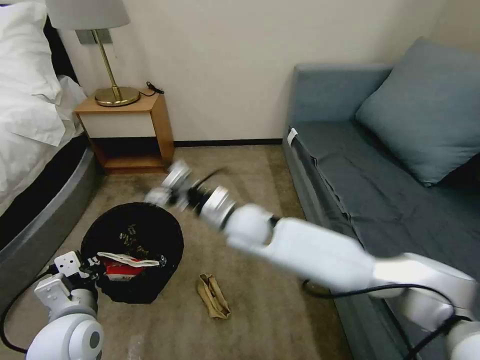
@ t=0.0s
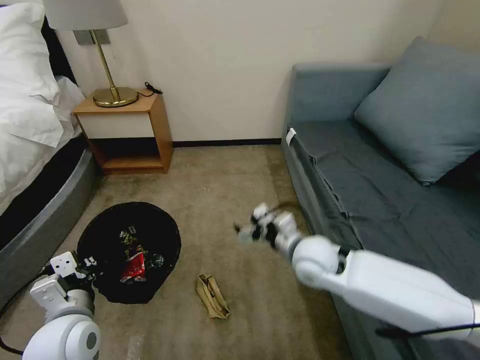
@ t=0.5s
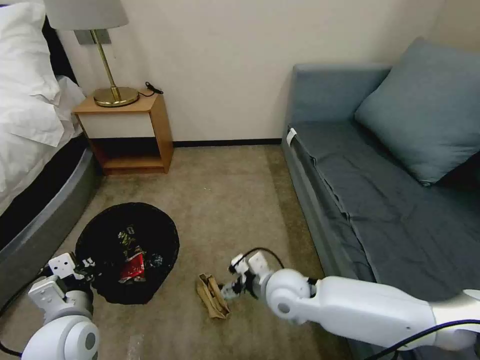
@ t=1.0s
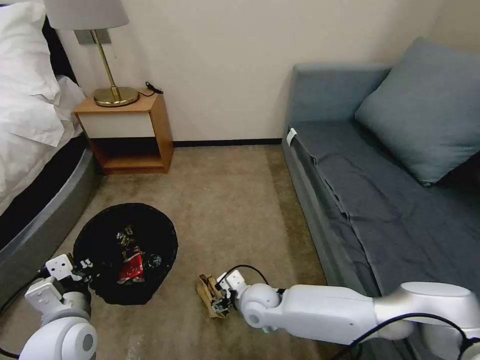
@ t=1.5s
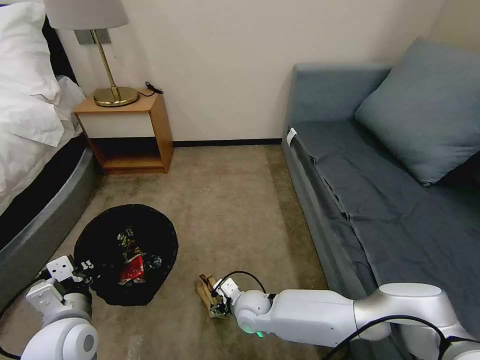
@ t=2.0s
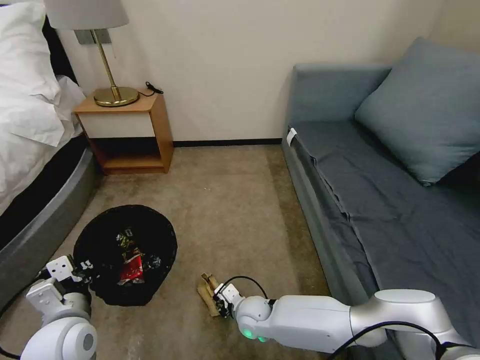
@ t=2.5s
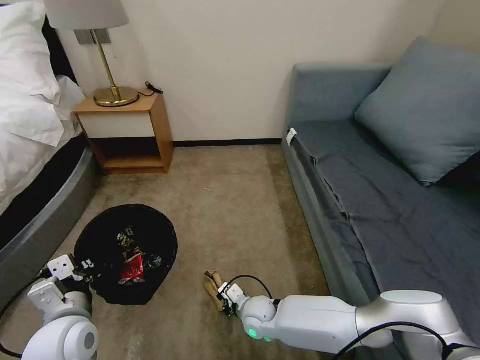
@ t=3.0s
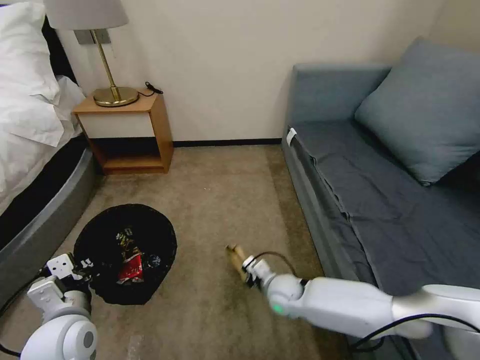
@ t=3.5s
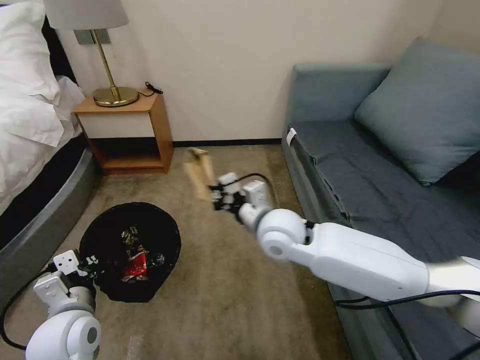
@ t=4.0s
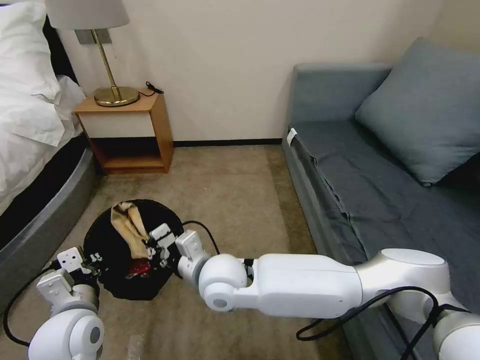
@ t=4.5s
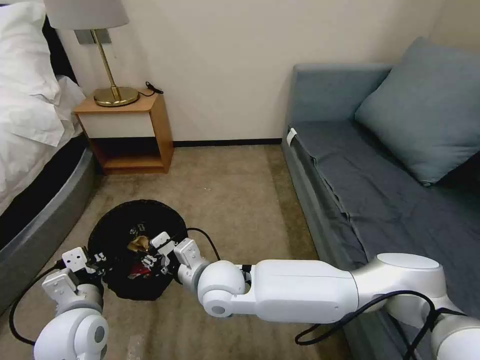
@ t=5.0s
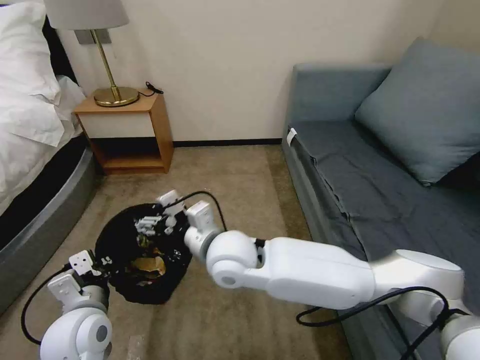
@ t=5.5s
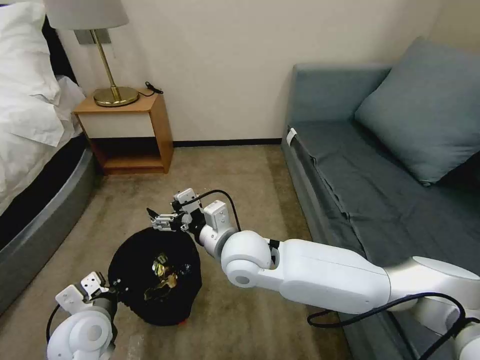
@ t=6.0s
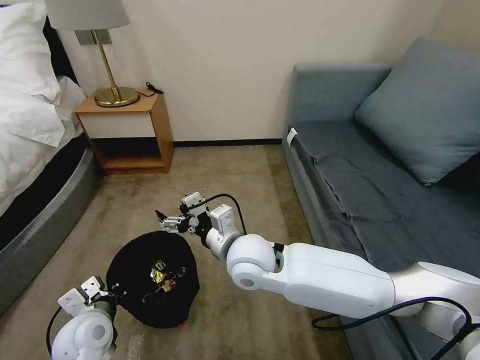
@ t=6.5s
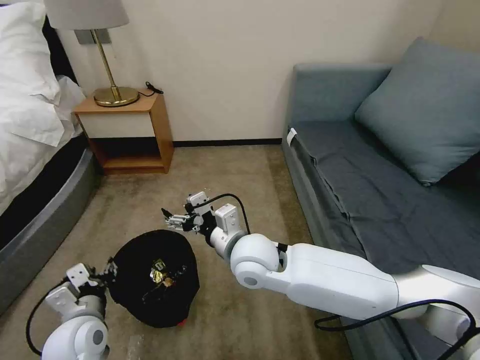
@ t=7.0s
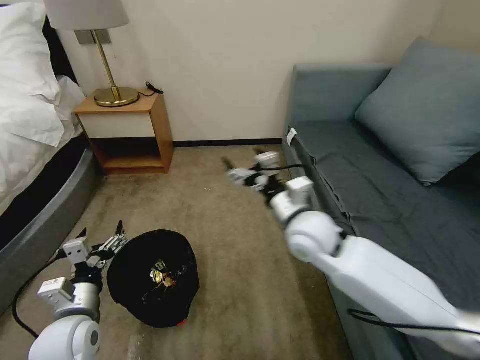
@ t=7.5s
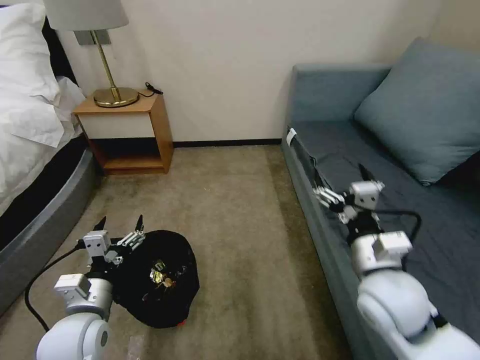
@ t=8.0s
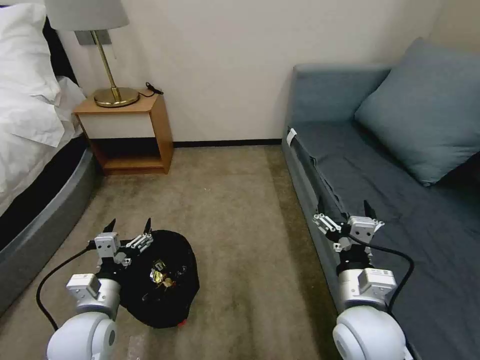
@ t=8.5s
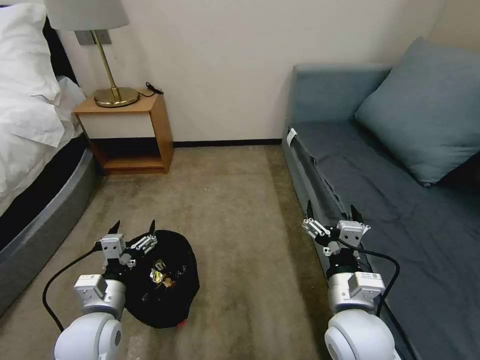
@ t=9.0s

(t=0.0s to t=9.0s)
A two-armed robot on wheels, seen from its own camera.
Task of the whole recording: Pick up the trash bin, then pick up the garbage on the floor and place it into the trash bin.
t=0.0s - t=2.0s: The right gripper travels downward and backward by approximately 25 cm.
t=2.0s - t=4.5s: The right gripper travels upward by approximately 20 cm, and closes up.
t=4.5s - t=7.0s: The right gripper shifts some 5 cm to the right, and opens, while the left gripper moves downward, some 5 cm, and opens.
t=7.0s - t=9.0s: The left gripper opens up; the right gripper is displaced to the right and backward by about 20 cm.

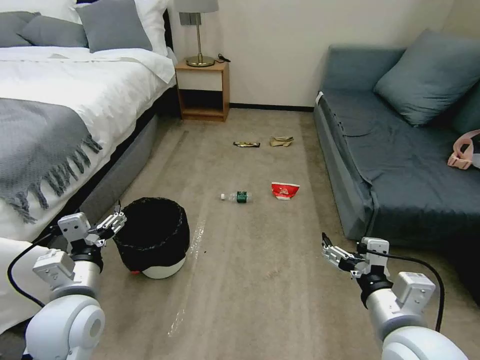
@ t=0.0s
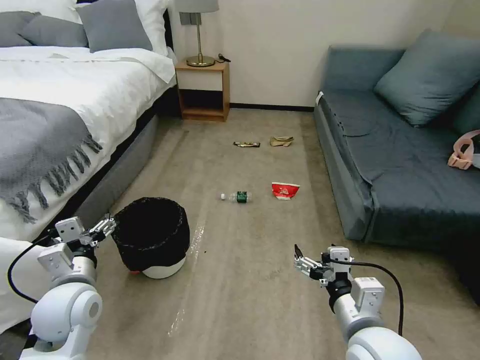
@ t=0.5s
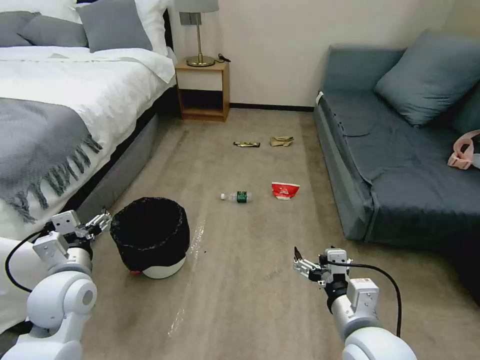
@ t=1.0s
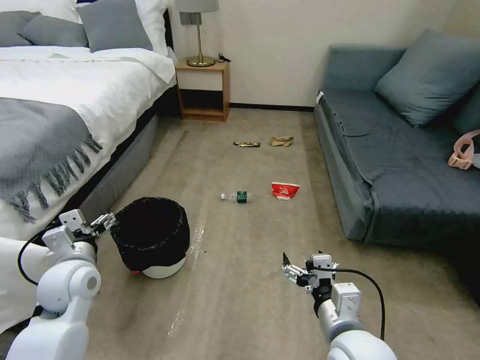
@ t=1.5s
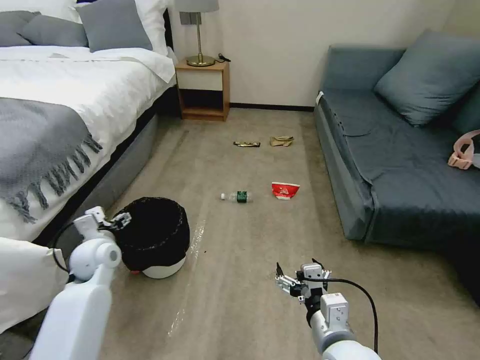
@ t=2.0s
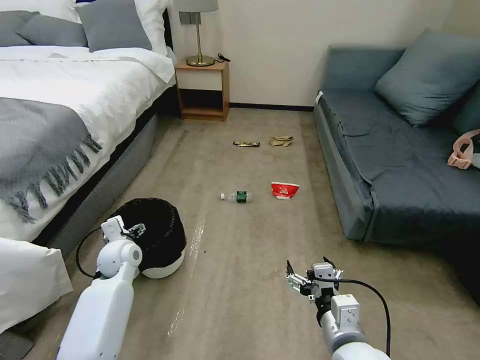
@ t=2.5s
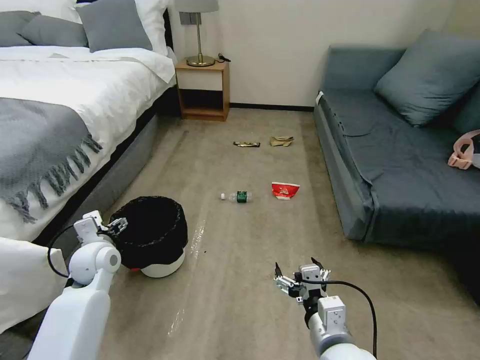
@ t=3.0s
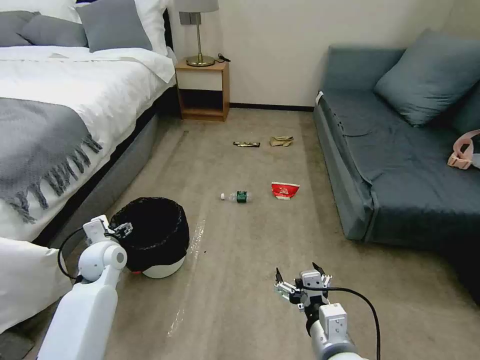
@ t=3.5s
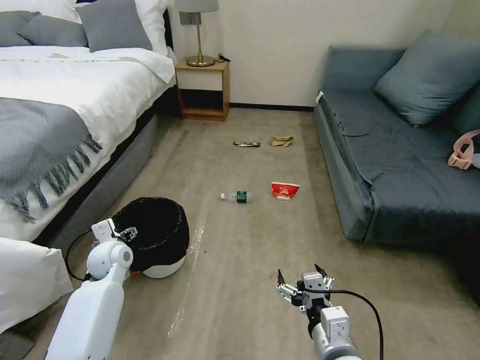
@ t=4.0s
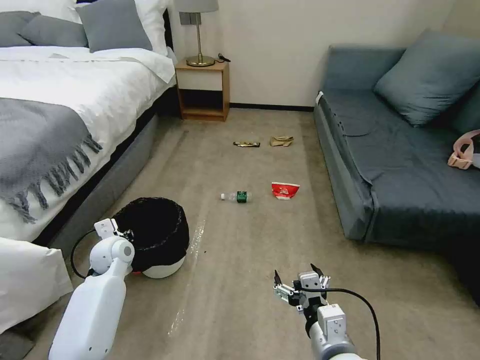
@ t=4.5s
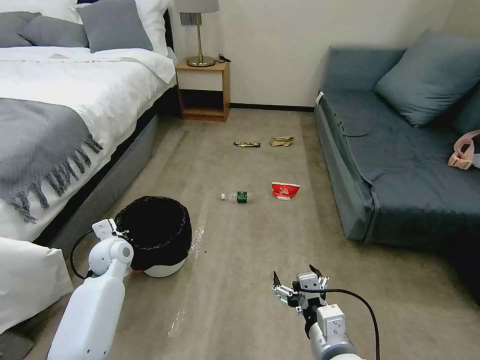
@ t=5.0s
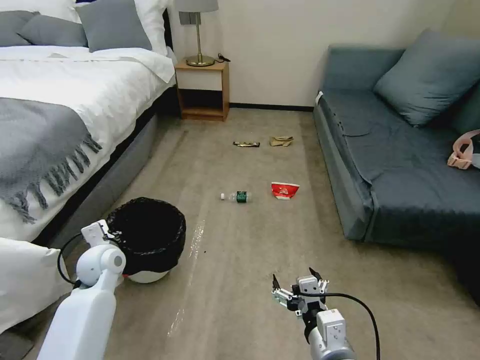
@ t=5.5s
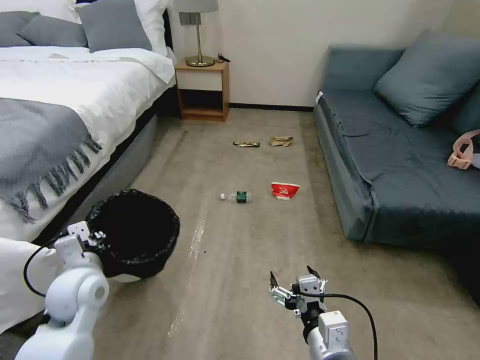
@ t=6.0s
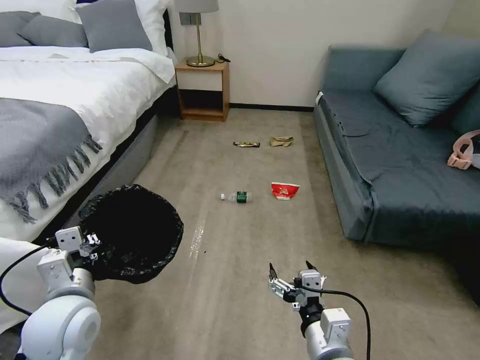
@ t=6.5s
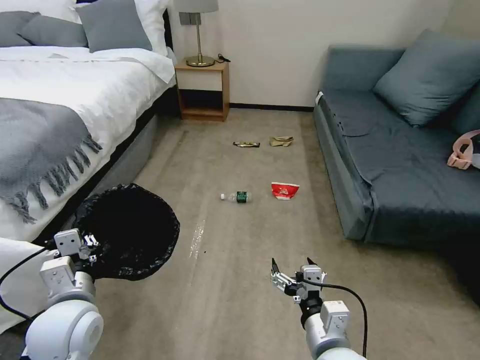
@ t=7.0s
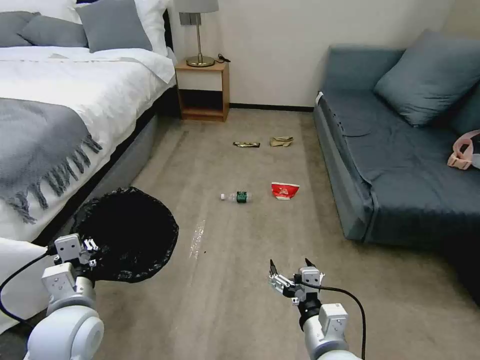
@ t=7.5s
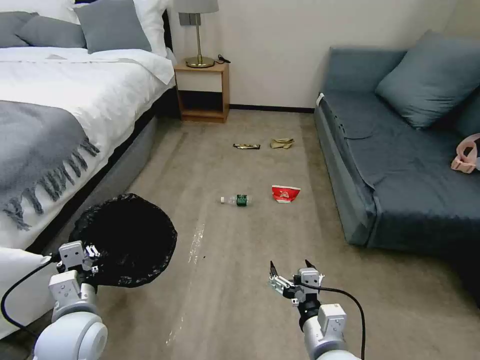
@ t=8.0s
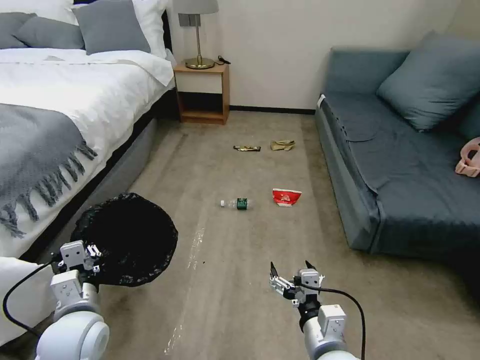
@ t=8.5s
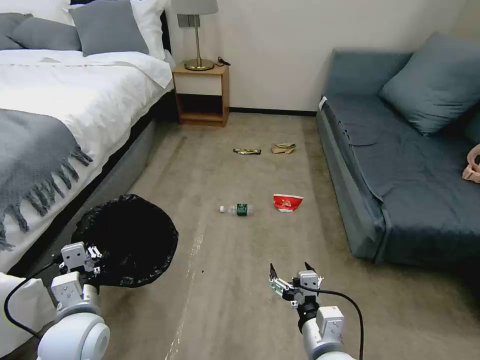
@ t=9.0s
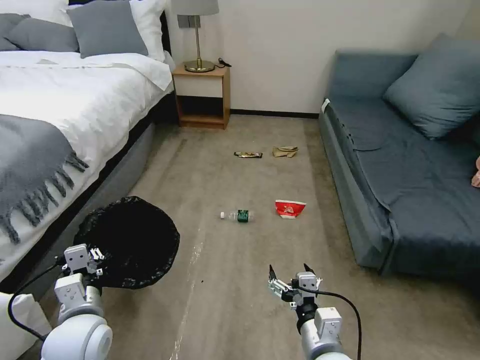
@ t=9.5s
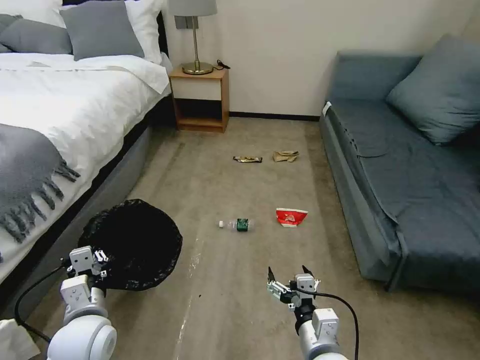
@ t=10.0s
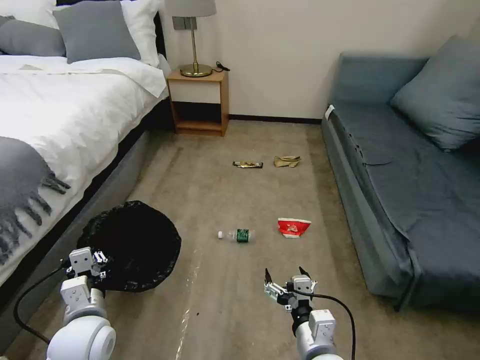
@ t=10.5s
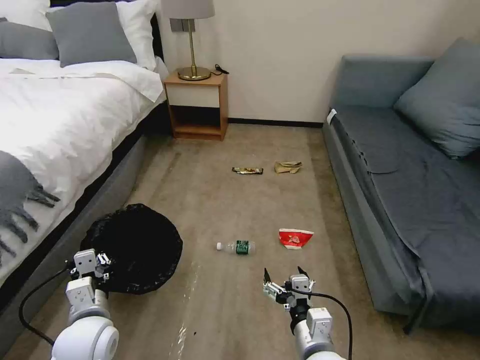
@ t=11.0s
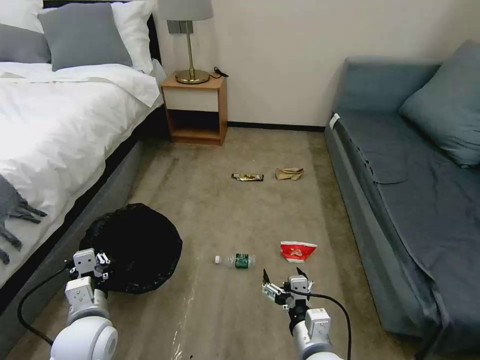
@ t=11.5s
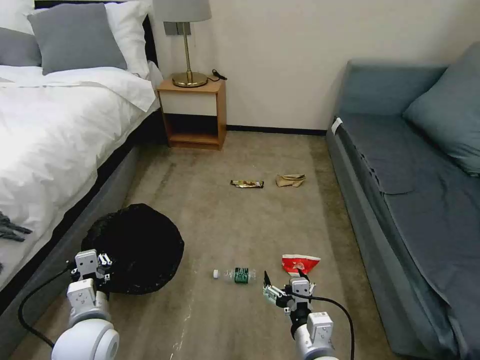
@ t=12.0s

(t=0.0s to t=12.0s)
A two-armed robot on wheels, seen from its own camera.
Task of the whole recording: Pick up the trash bin, then pick up the garbage on the floor and place it into the trash bin.
t=2.0s - t=4.0s: The left gripper moves up and down over approximately 5 cm, changing direction 2 times.
t=4.0s - t=6.0s: The left gripper travels backward and upward by roughly 15 cm, and closes.
t=6.0s - t=8.0s: The left gripper shifts about 5 cm backward.

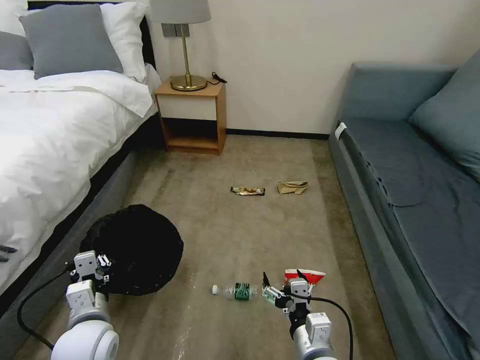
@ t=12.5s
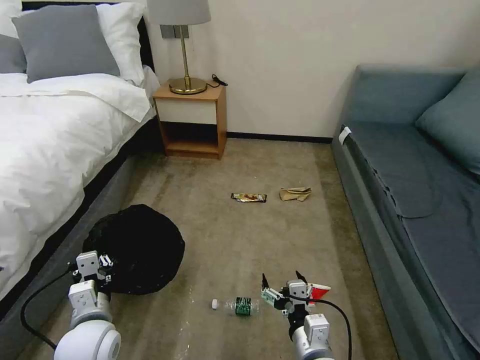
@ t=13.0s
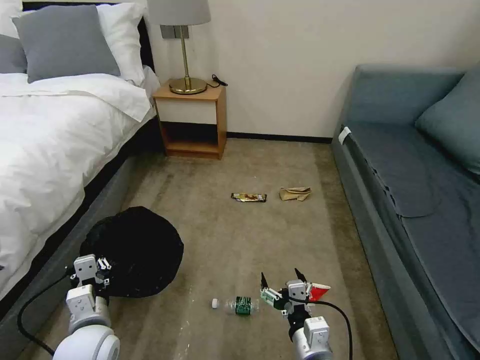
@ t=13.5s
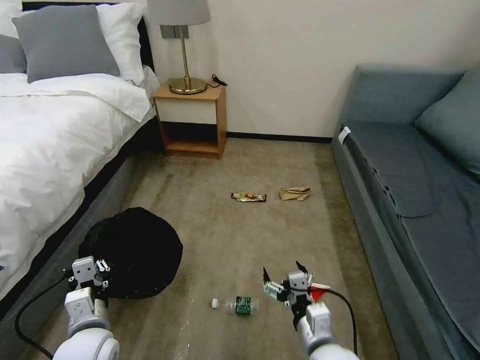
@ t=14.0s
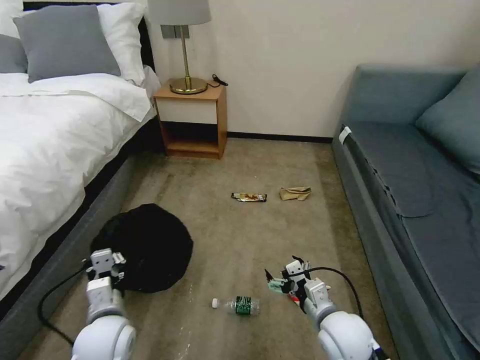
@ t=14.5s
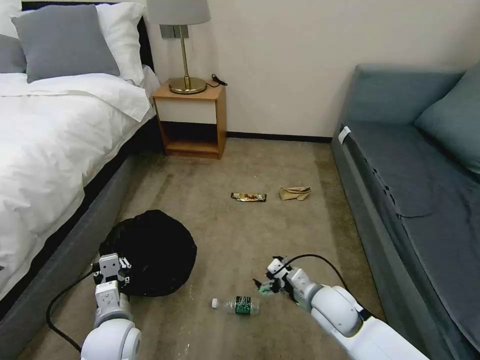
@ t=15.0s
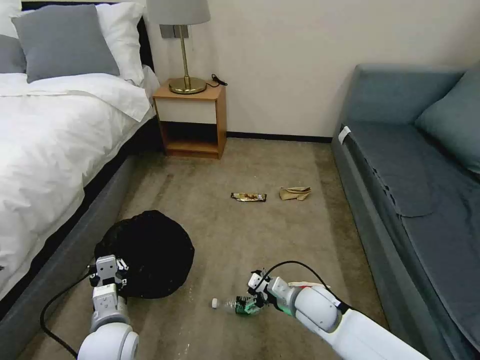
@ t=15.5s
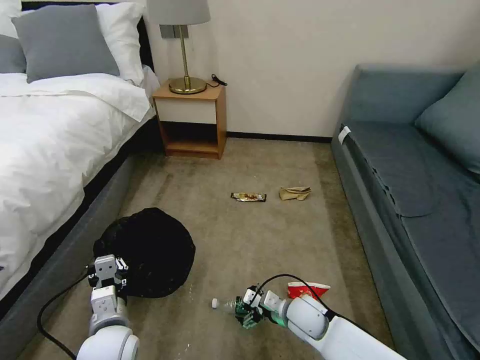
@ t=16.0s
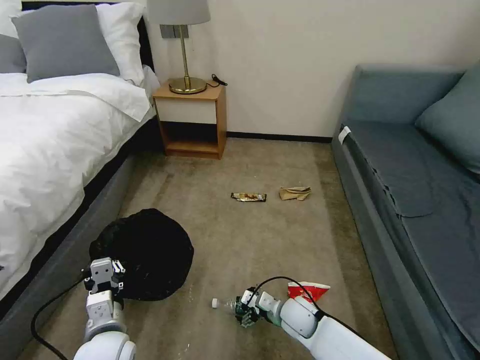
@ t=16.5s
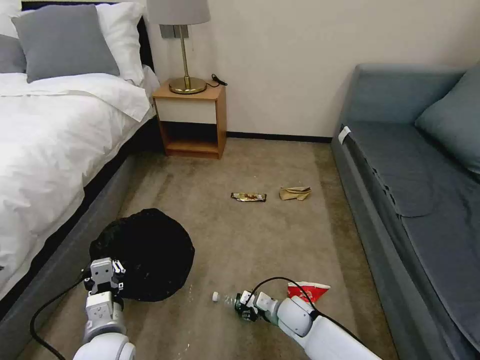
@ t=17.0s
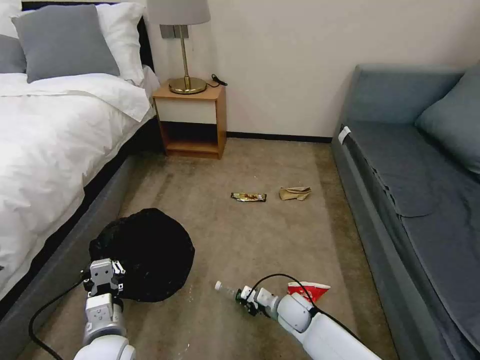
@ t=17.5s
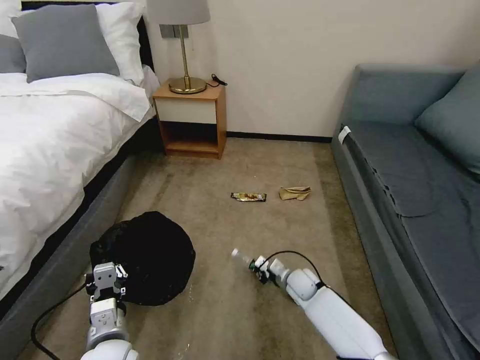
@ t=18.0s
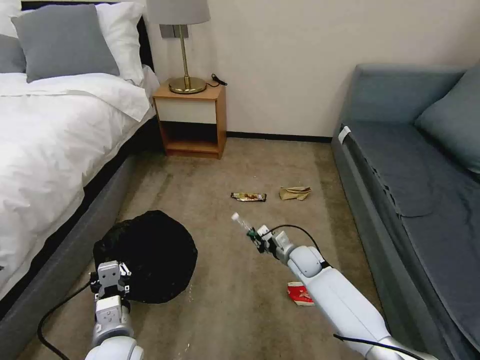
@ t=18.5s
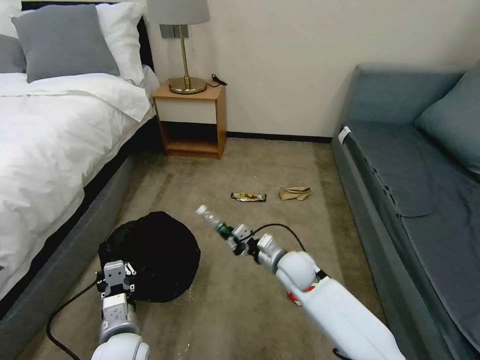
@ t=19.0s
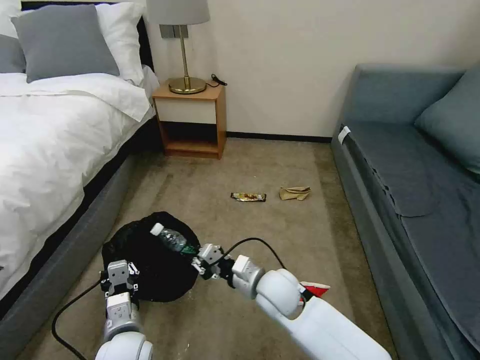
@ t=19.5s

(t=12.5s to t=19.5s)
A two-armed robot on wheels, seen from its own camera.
Task of the whole recording: Pick up the trash bin, then pick up the garbage on the floor and place it into the trash bin.
t=12.5s - t=14.5s: The right gripper moves forward and to the right, approximately 10 cm.
t=14.5s - t=16.0s: The right gripper travels downward and forward by some 10 cm.
t=16.0s - t=17.5s: The right gripper shifts some 5 cm downward, and closes up.
t=17.5s - t=19.5s: The right gripper heads upward and to the left, covering approximately 20 cm.
